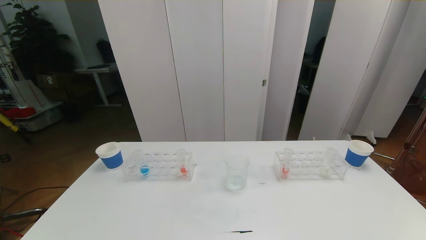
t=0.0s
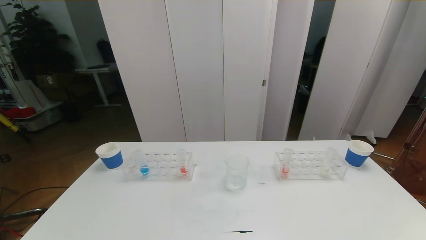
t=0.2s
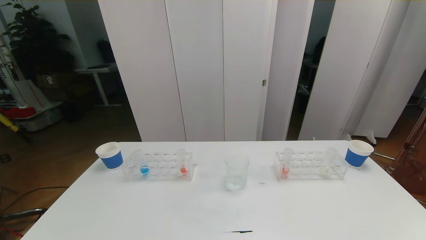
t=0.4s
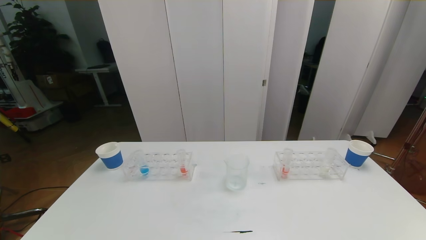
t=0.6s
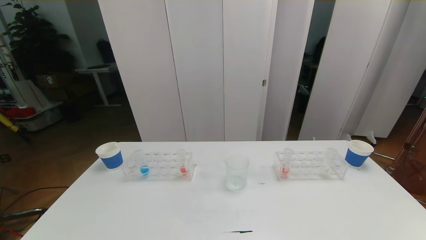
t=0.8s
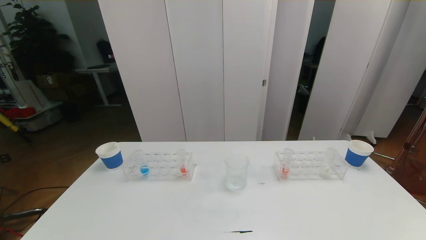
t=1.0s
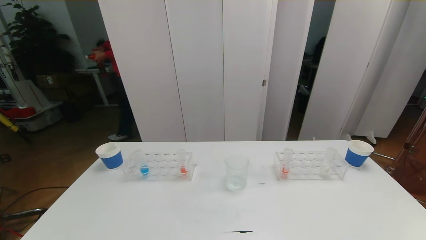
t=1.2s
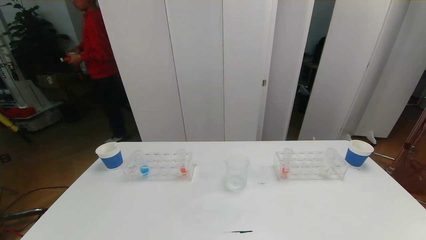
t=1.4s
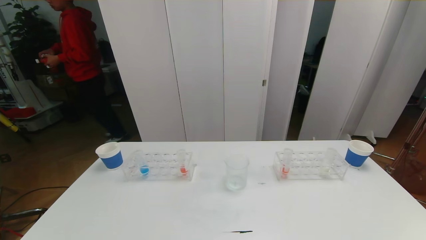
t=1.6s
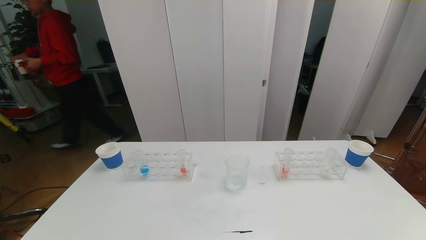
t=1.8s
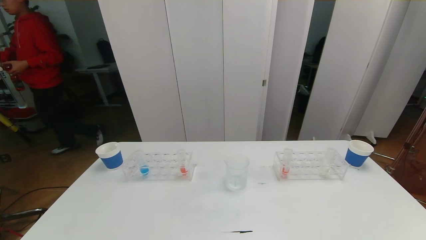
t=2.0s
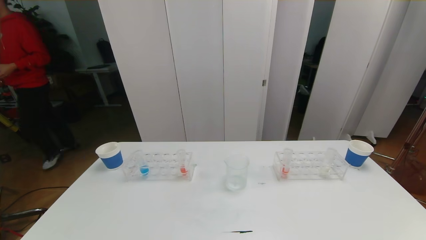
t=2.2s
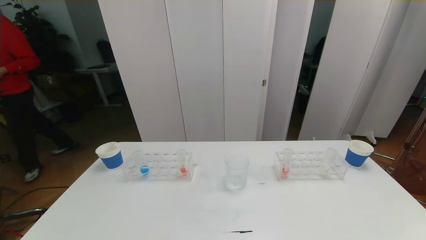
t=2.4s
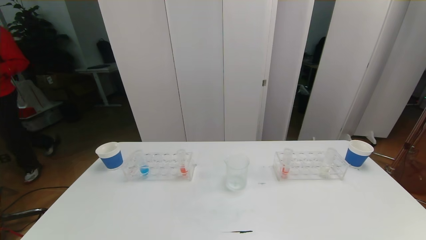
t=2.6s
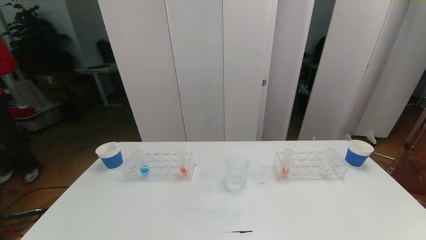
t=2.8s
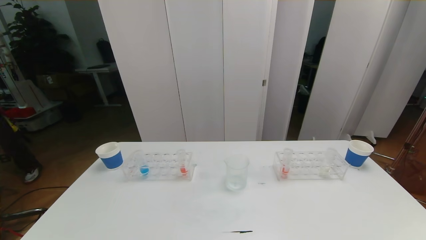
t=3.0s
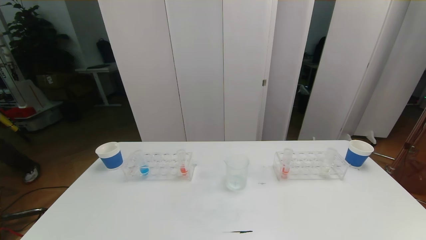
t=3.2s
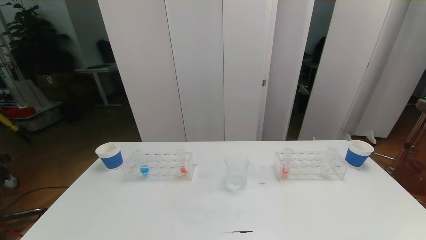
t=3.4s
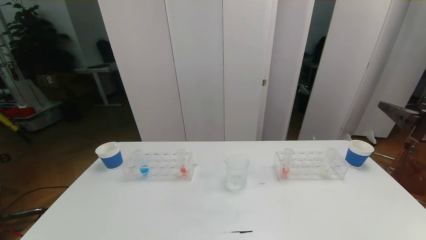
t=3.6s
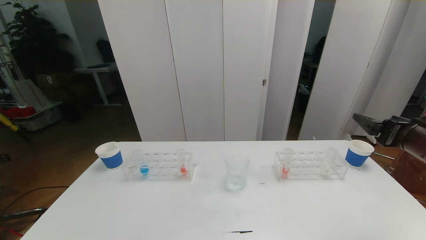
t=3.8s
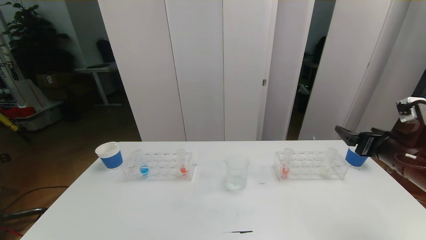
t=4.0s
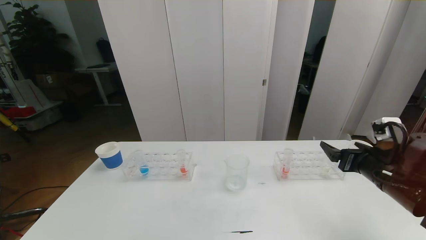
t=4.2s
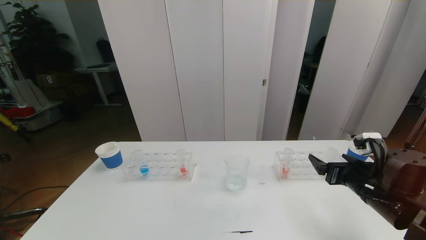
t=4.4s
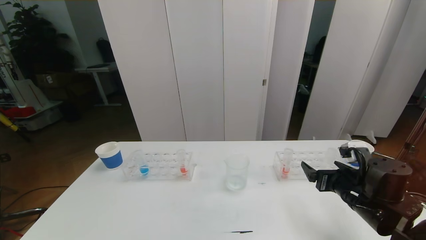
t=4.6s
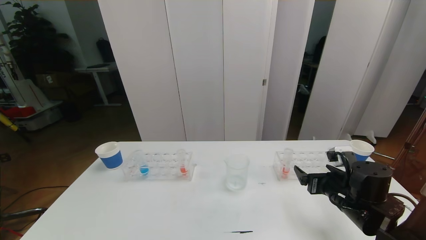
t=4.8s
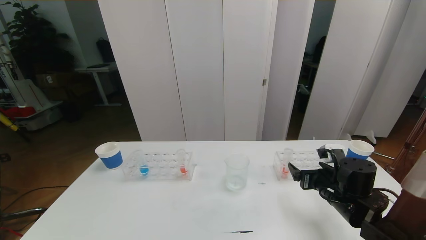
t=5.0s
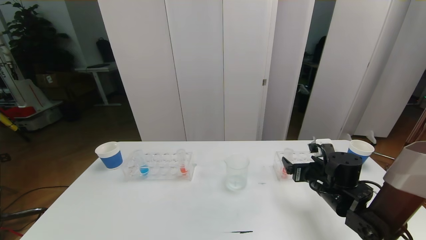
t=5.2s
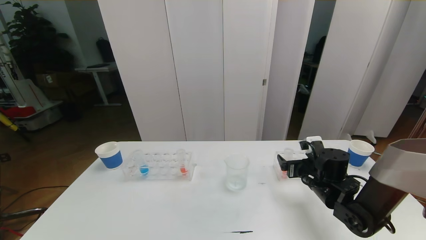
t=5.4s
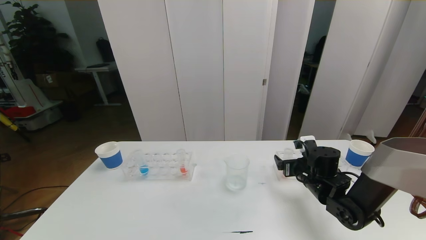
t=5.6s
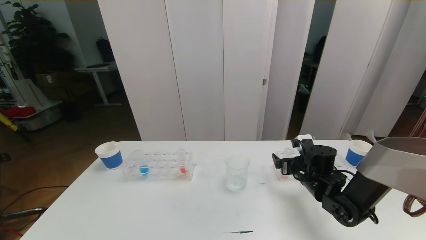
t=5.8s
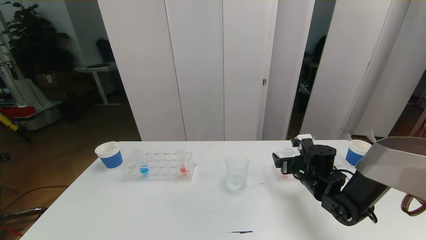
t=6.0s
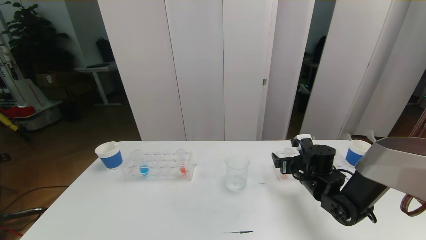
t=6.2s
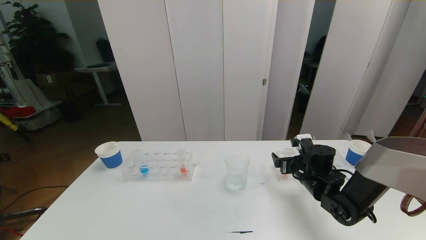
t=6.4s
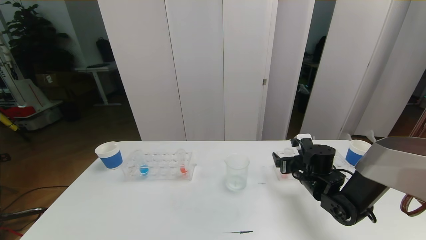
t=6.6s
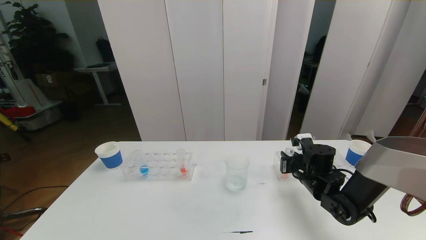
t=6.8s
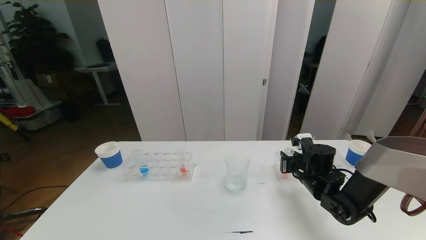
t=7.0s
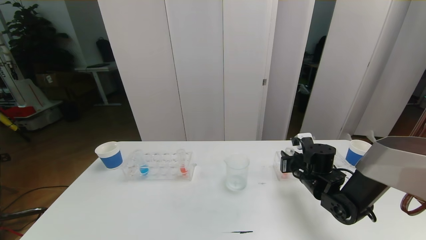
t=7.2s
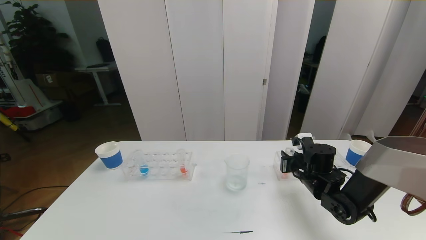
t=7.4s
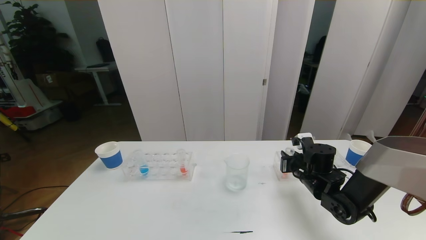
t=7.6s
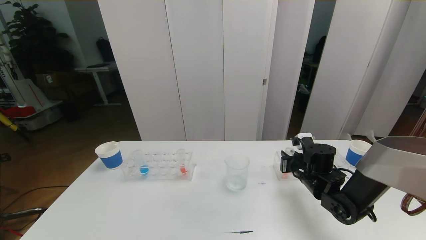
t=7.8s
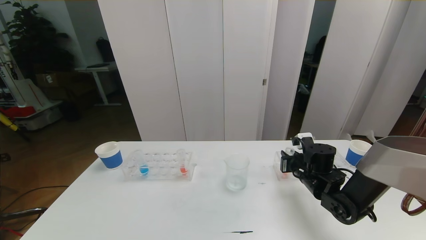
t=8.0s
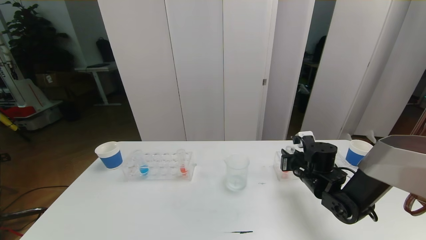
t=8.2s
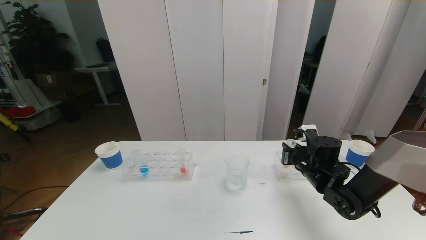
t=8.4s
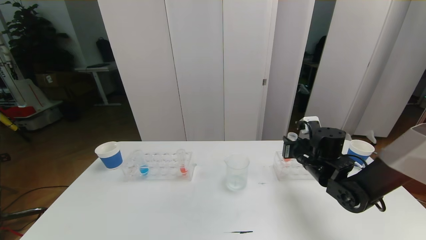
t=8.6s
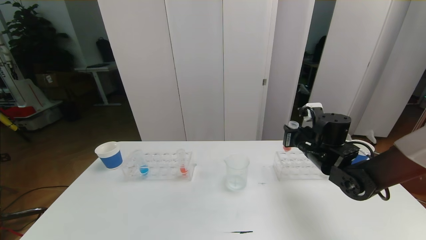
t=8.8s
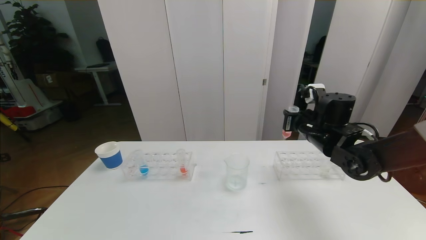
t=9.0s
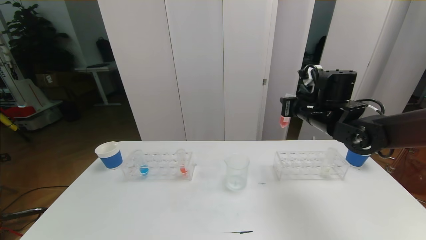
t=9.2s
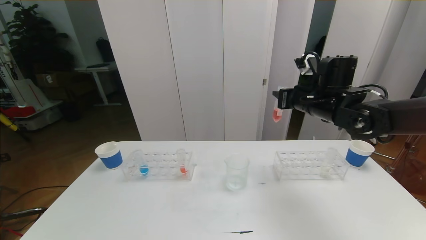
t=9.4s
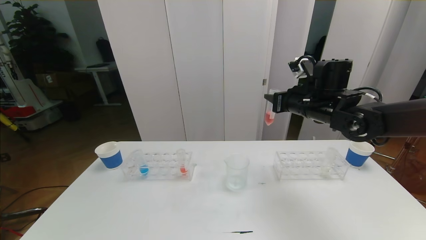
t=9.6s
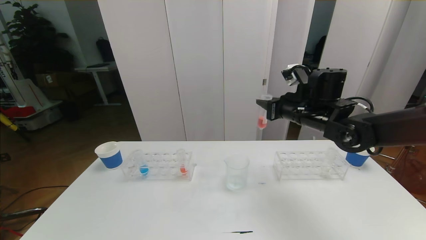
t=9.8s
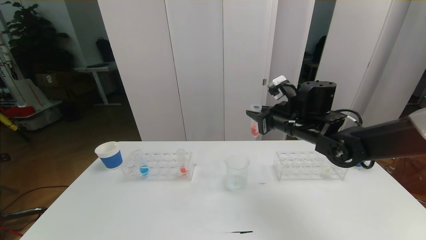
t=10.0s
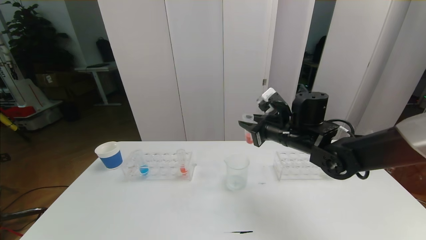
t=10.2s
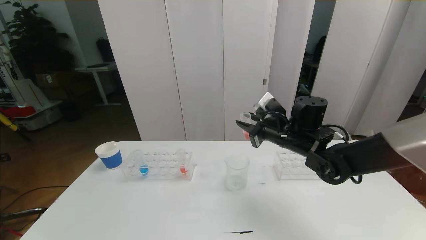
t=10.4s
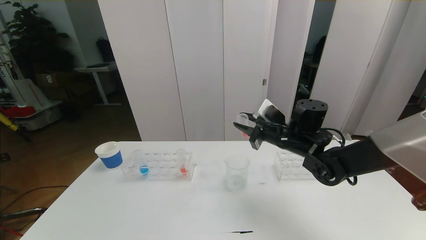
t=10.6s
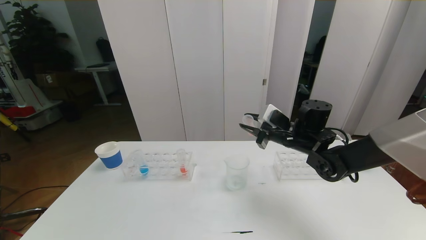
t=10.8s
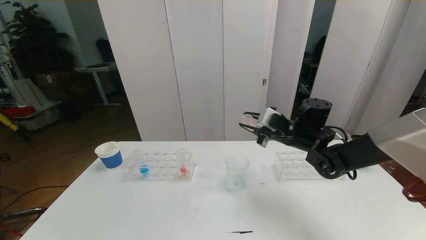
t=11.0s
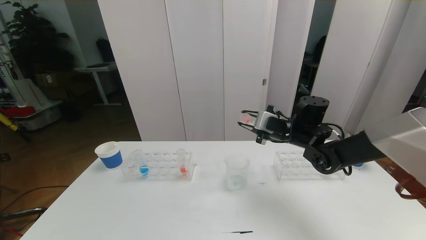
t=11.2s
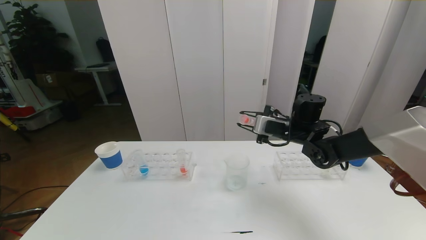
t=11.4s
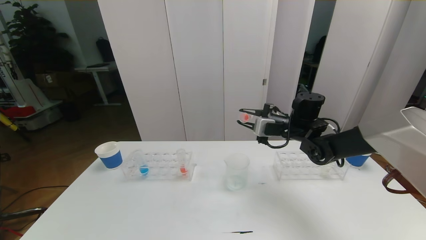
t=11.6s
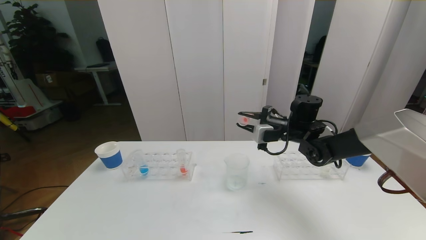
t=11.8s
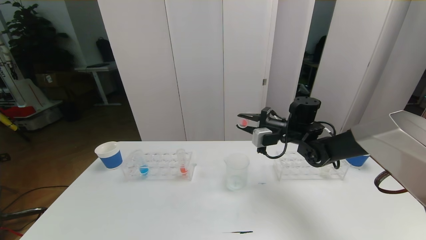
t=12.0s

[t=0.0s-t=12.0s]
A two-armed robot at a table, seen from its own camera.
Task of the whole recording: pick up the test tube with red pigment the test tube with blue pigment and the test tube with white pigment by grippers and pour them into the beaker.
t=0.0s to t=1.6s: The two grippers keep their place.
t=3.0s to t=4.4s: The right gripper goes some 25 cm forward and downward.
t=4.4s to t=6.0s: The right gripper travels forward, downward and to the left by approximately 15 cm.
t=6.0s to t=7.6s: The right gripper closes.
t=7.6s to t=9.0s: The right gripper is displaced upward by about 15 cm.
t=9.0s to t=10.4s: The right gripper goes roughly 5 cm to the left.
t=10.4s to t=12.0s: The right gripper is displaced forward by approximately 5 cm.

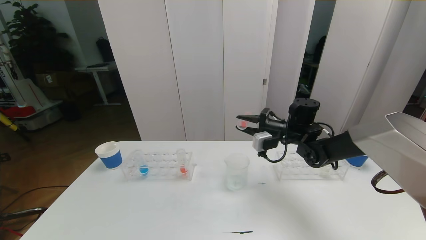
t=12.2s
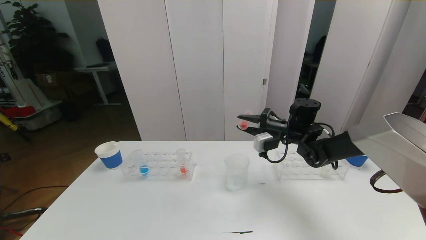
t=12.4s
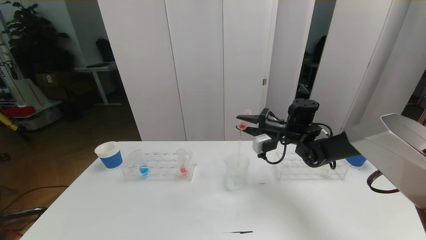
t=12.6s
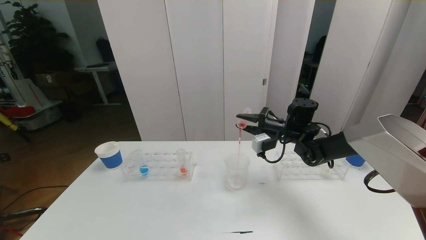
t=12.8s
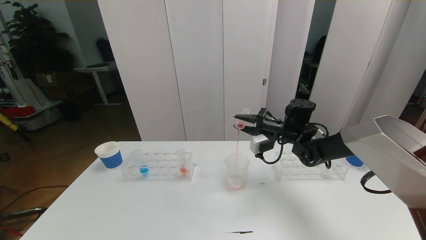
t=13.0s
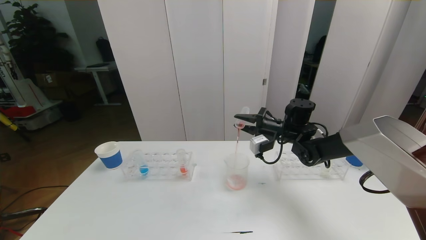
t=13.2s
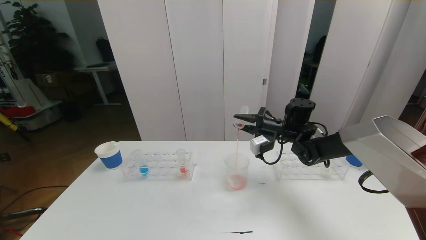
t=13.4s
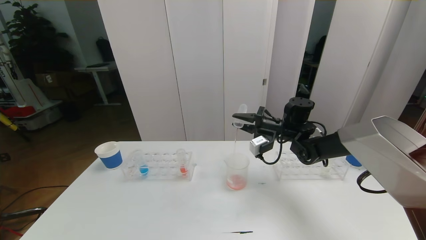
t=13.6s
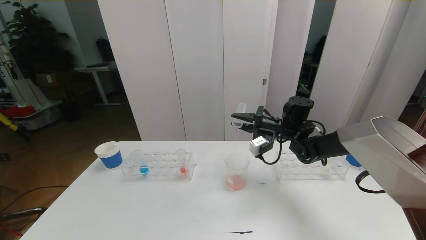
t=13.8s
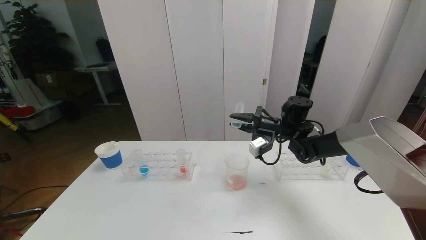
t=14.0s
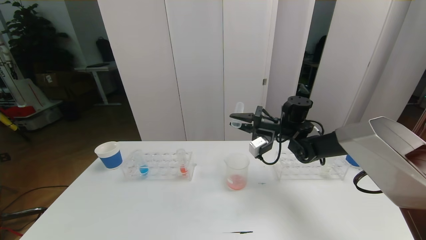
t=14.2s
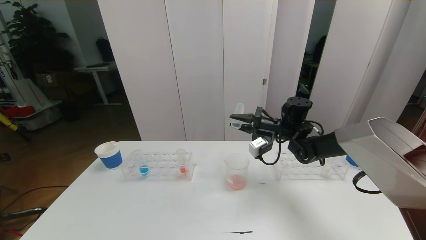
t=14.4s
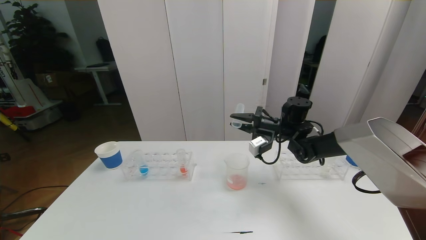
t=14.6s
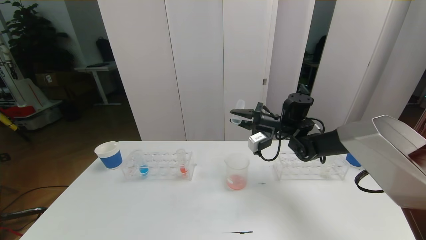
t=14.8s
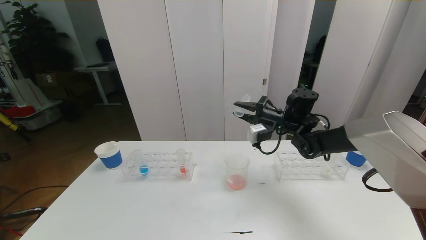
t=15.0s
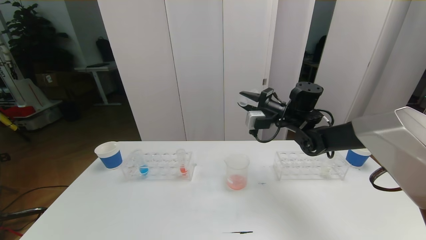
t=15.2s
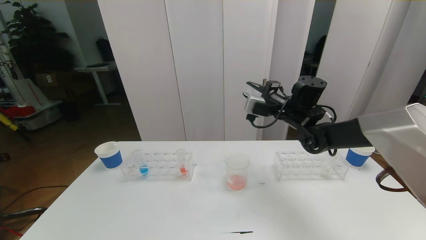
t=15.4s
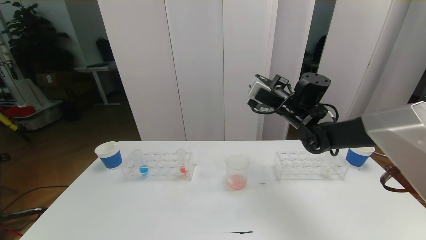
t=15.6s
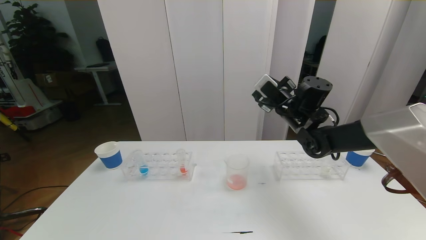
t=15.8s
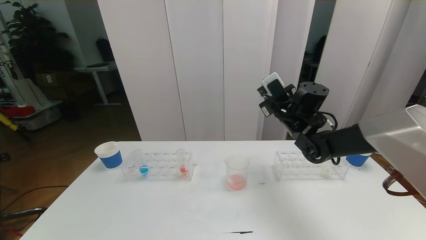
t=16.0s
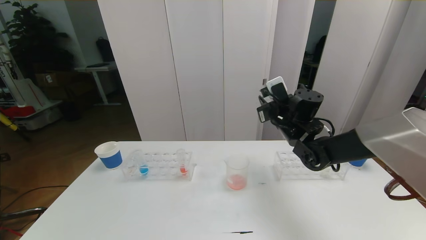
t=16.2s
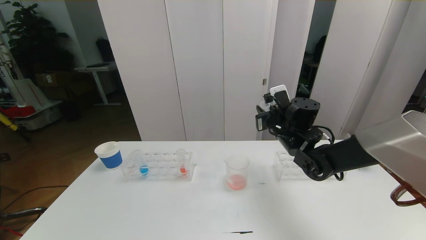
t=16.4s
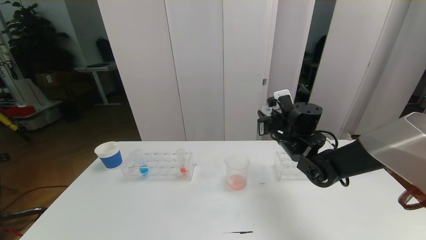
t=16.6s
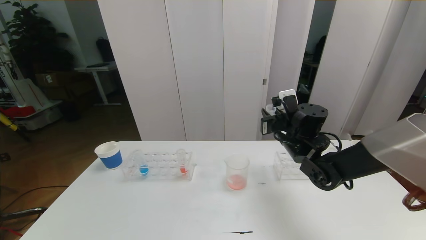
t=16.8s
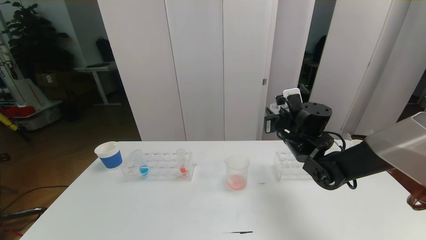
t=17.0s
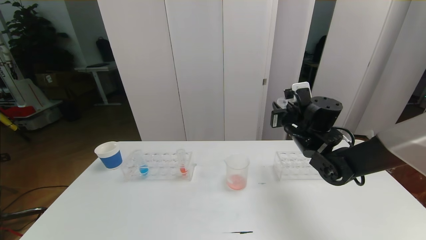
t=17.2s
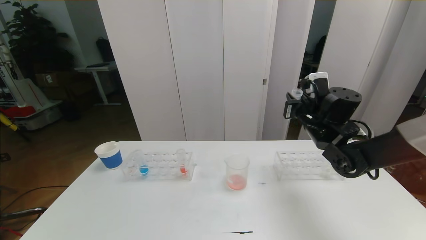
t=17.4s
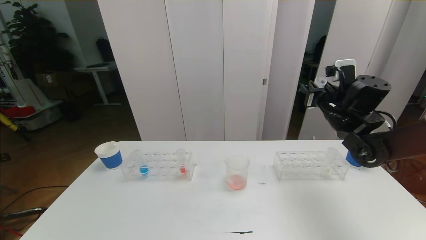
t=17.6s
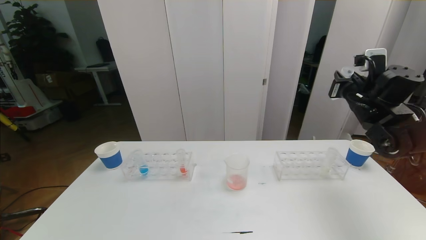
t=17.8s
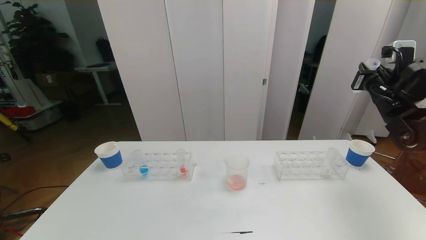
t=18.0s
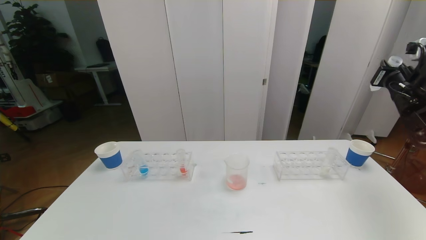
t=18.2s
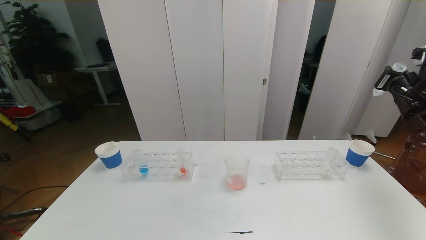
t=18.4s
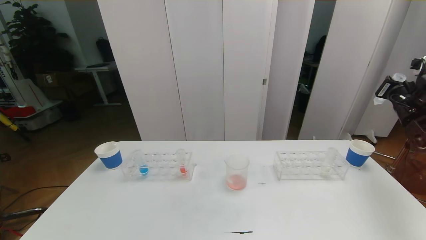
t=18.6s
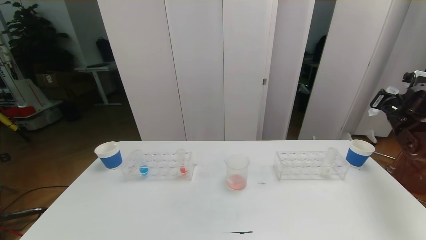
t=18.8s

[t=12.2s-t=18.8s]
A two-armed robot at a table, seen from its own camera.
Task of the whole recording: pick up the test tube with red pigment the test tube with blue pigment and the test tube with white pigment by grippers and pour them into the beaker.
t=12.2s to t=13.8s: The grippers make only small movements.
t=13.8s to t=15.4s: The right gripper is displaced upward by roughly 5 cm.
t=15.4s to t=17.2s: The right gripper is displaced backward by about 5 cm.
t=17.2s to t=18.8s: The right gripper goes about 25 cm to the right.
